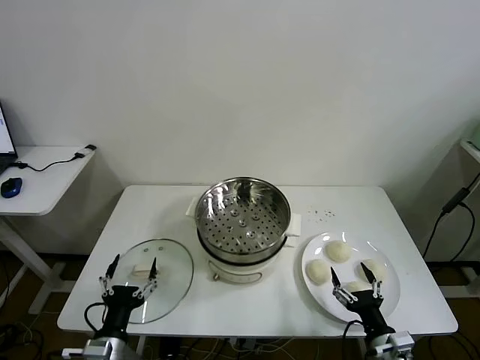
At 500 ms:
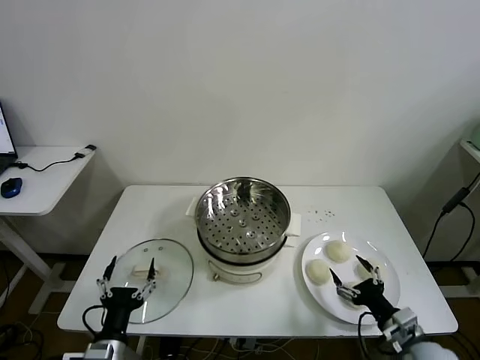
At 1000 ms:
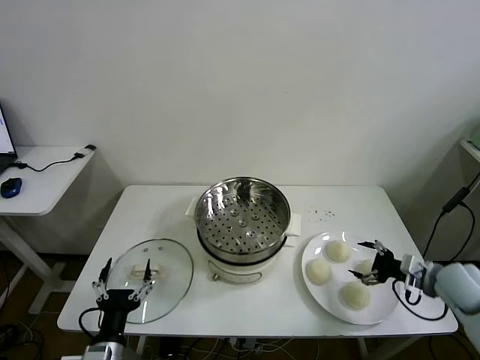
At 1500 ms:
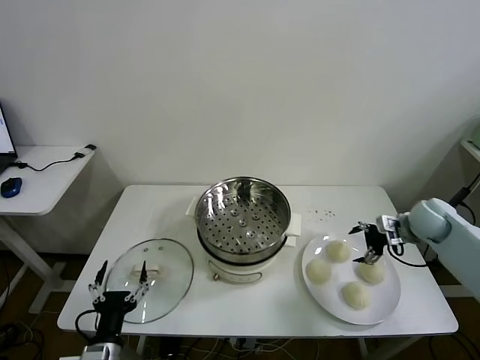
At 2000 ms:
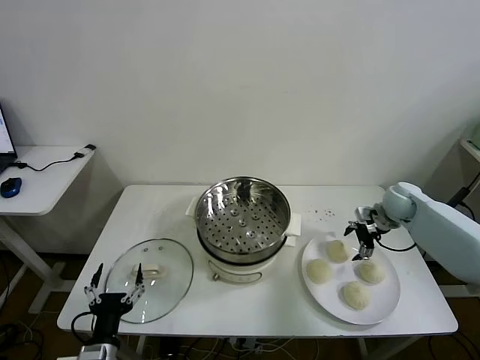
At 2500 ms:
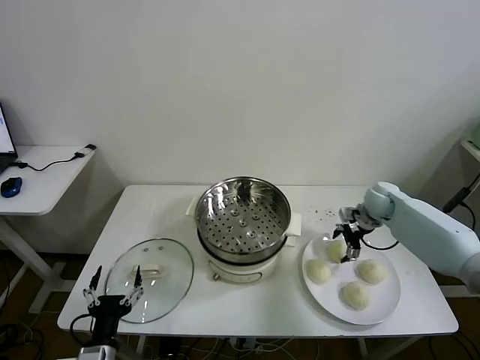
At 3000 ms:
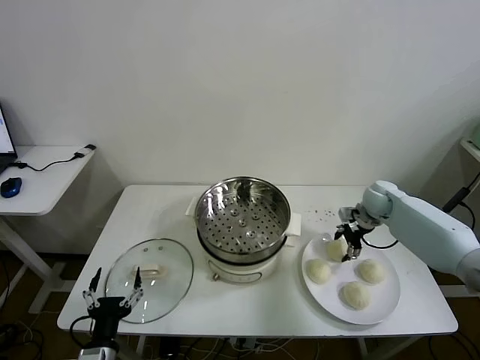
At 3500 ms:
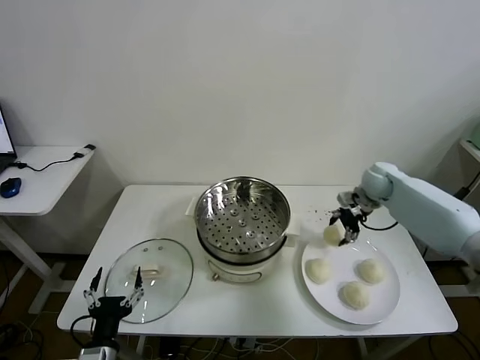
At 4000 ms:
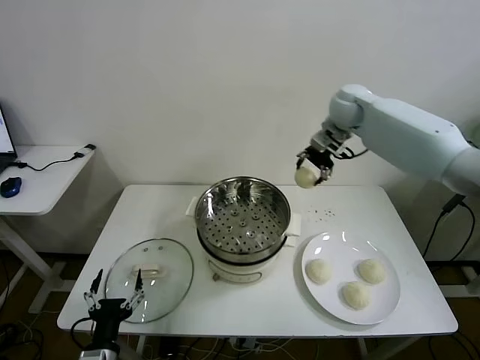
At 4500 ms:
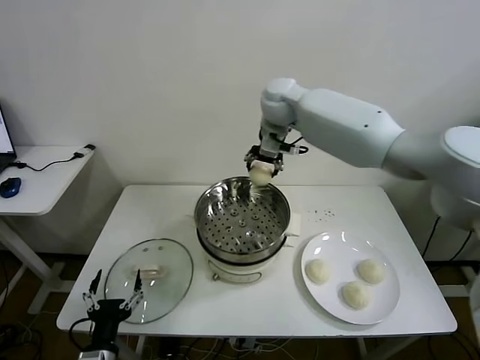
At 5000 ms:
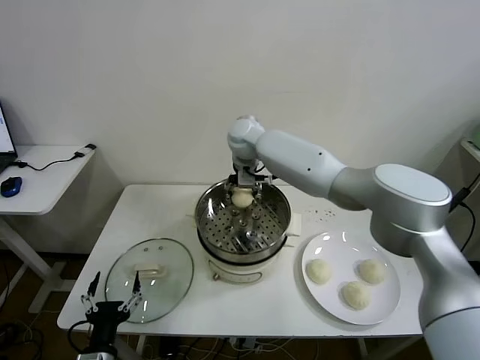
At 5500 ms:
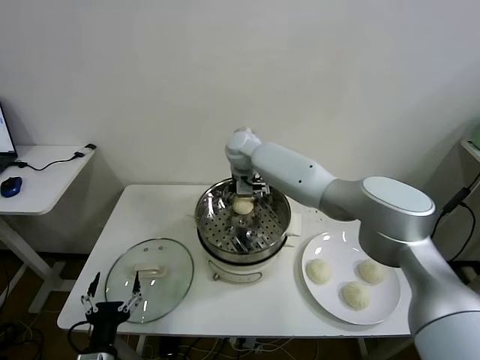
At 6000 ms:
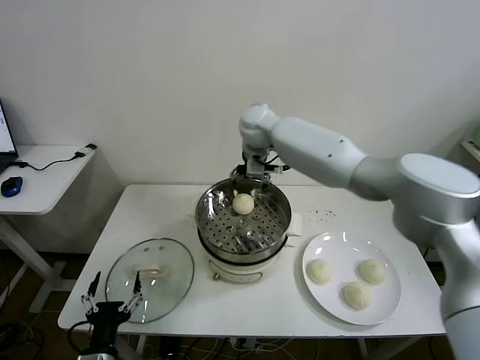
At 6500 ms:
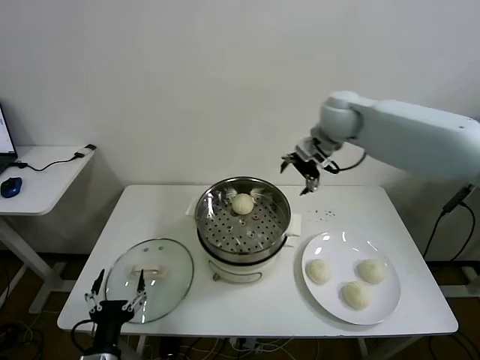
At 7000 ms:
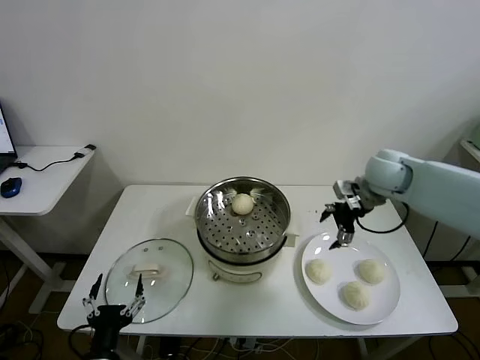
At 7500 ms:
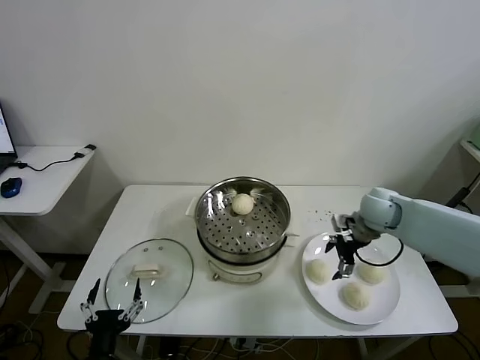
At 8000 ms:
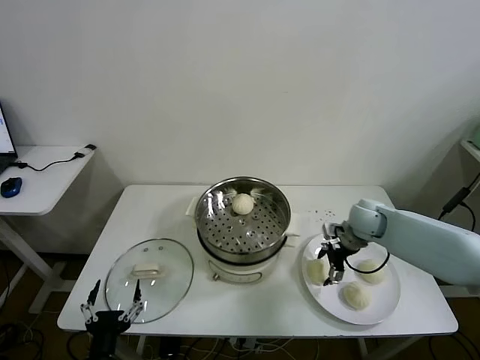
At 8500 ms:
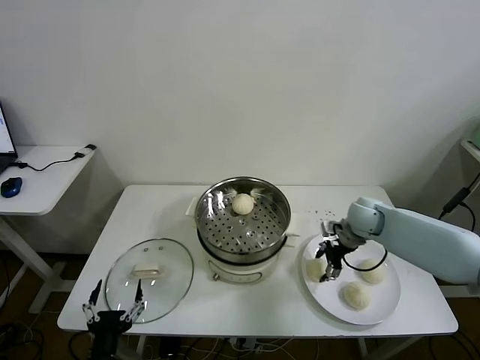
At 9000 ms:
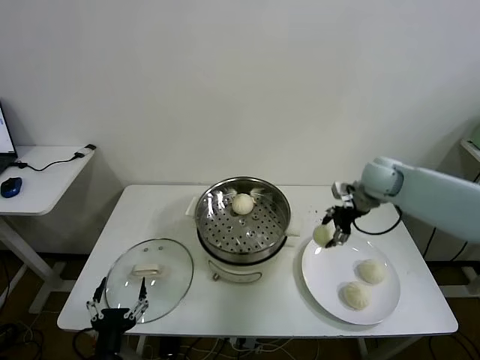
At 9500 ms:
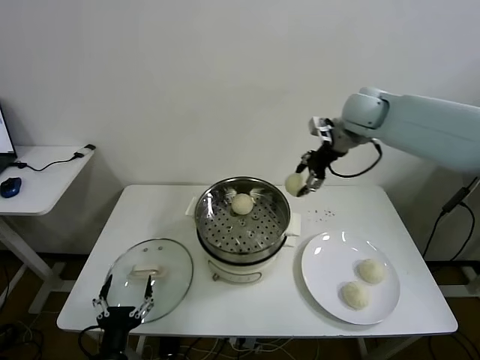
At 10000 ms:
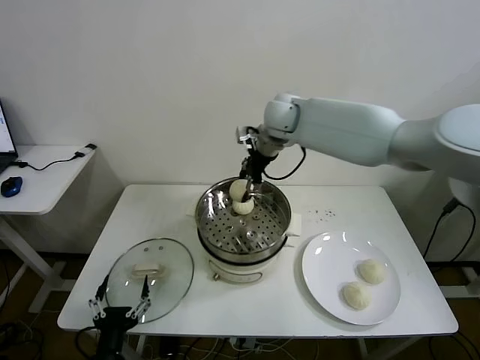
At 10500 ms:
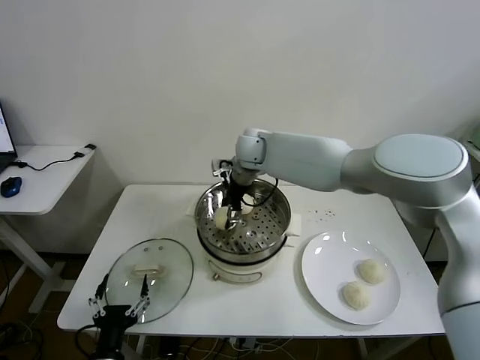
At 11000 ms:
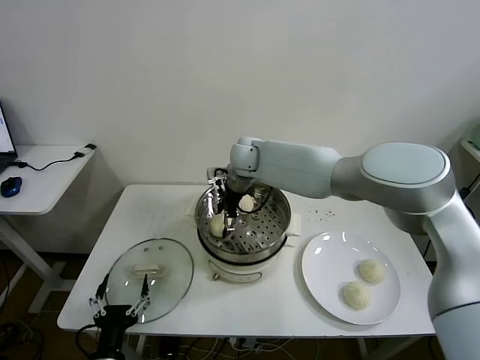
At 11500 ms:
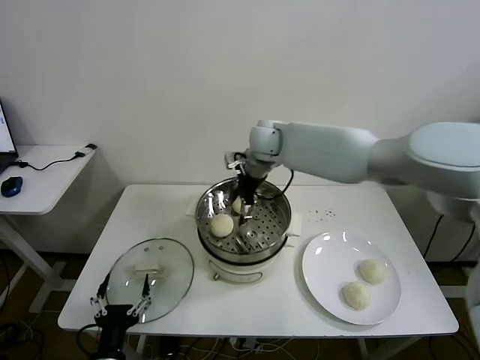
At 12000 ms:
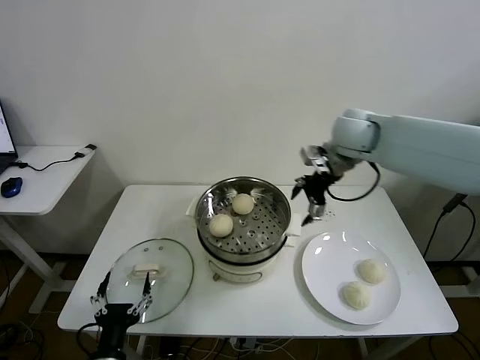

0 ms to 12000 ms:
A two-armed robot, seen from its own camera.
Task of the whole recording: take steamed baozi put them in steamer then cover it.
Step, 0 ms to 3000 ms: Grasp the baozi in the plate with right gripper.
Step, 3500 ms to 5500 ms: Place the baozi on the steamer with right gripper.
Step, 6000 ms to 8500 ms: Grasp the baozi in the plate with right gripper.
Step, 9000 ms to 11000 ms: Place the baozi on the steamer with right gripper.
2000 ms to 4000 ms: The right gripper heads upward and to the left, covering some 30 cm, and closes up.
4000 ms to 6000 ms: The right gripper travels to the left by some 15 cm, and opens up.
6000 ms to 8000 ms: The right gripper shifts some 35 cm to the right, downward and backward.
8000 ms to 10000 ms: The right gripper goes about 35 cm to the left, upward and forward, and closes.
10000 ms to 12000 ms: The right gripper moves to the right and backward, roughly 20 cm, and opens its fingers.

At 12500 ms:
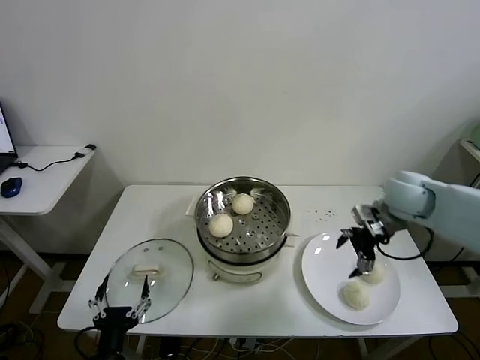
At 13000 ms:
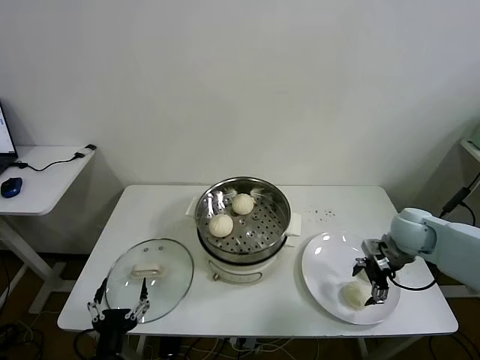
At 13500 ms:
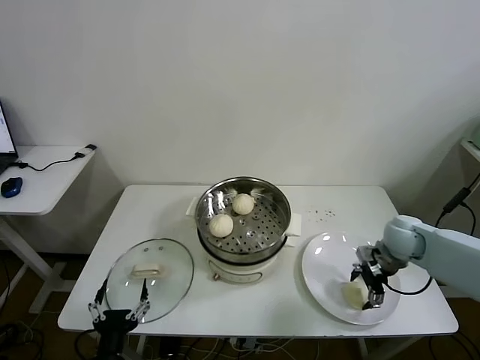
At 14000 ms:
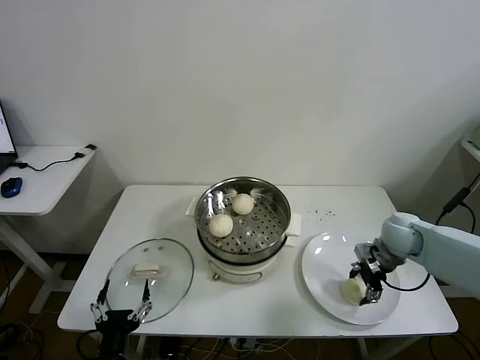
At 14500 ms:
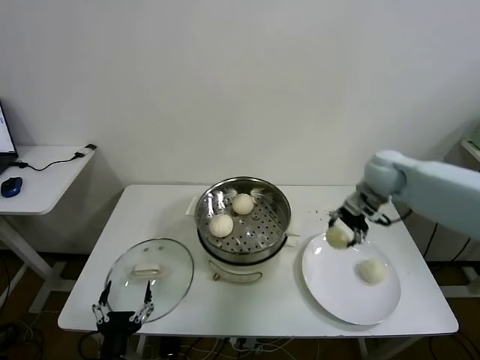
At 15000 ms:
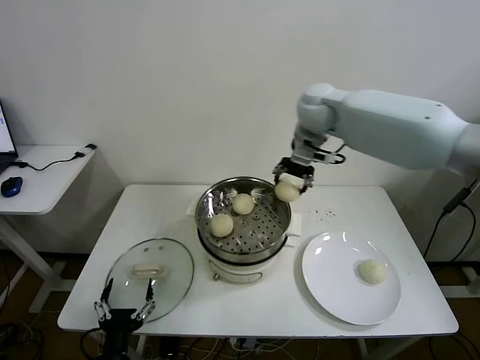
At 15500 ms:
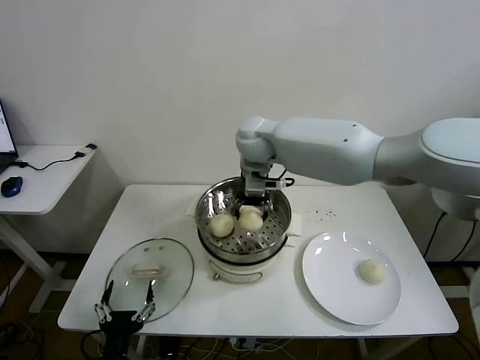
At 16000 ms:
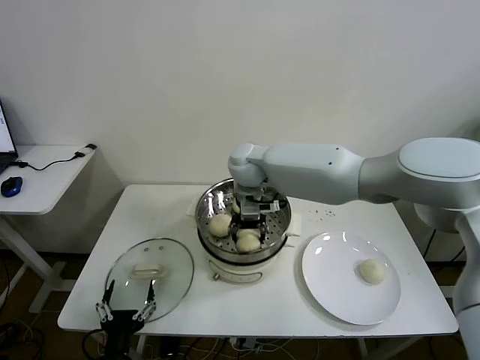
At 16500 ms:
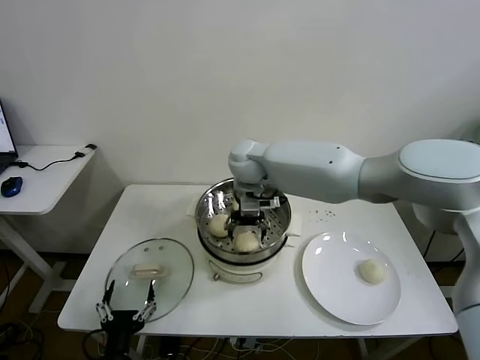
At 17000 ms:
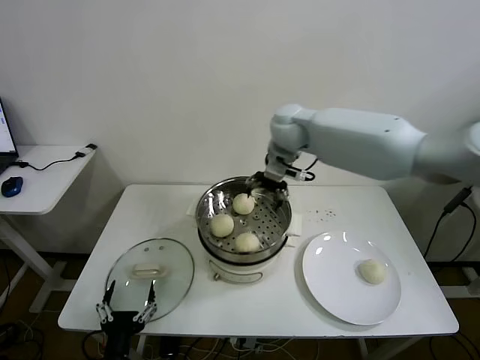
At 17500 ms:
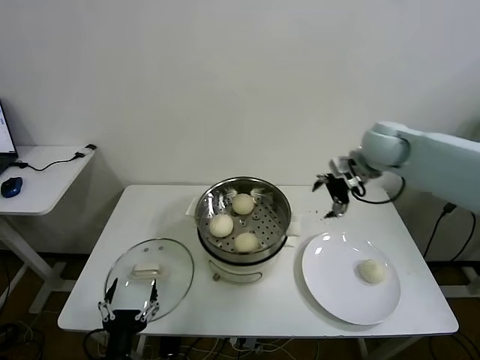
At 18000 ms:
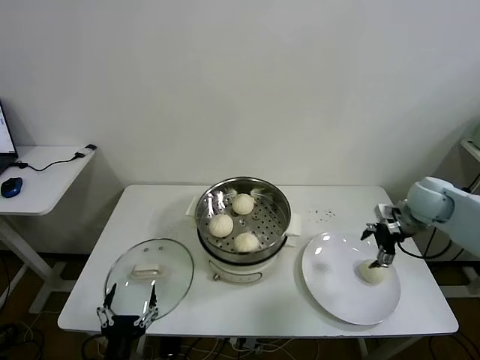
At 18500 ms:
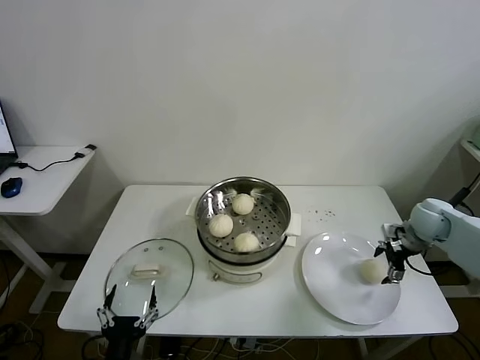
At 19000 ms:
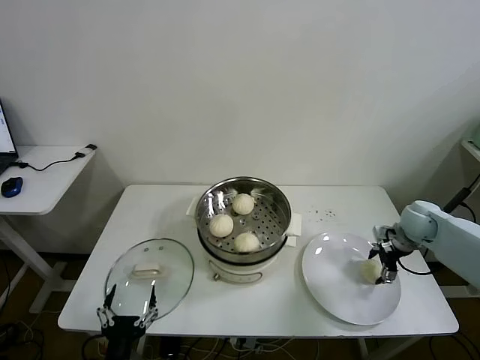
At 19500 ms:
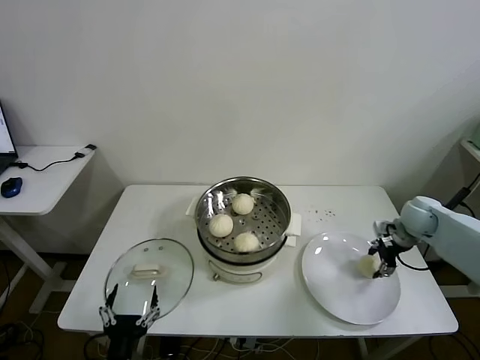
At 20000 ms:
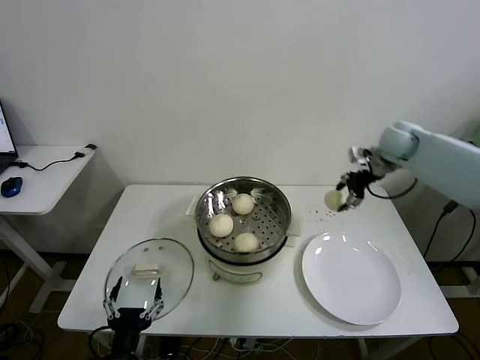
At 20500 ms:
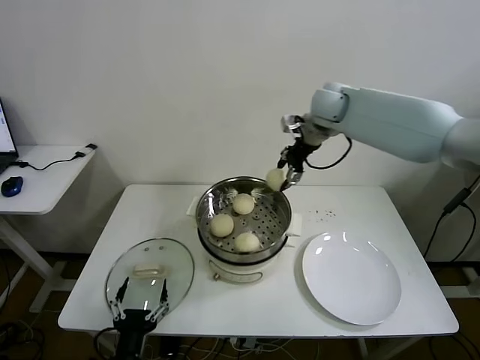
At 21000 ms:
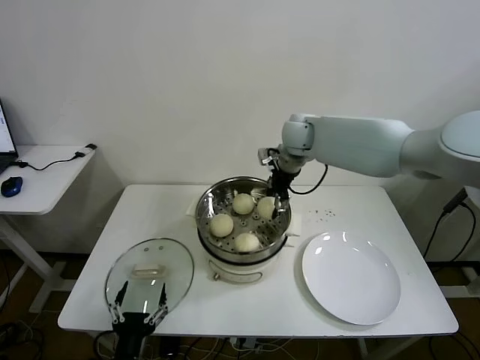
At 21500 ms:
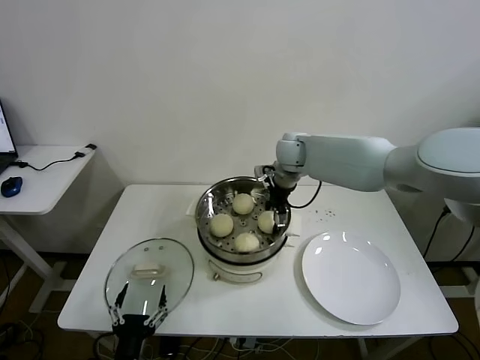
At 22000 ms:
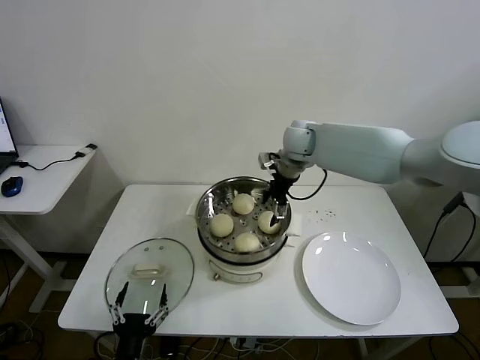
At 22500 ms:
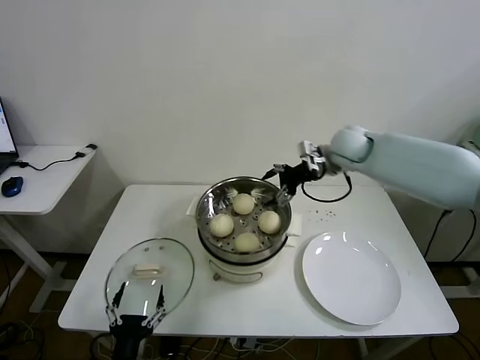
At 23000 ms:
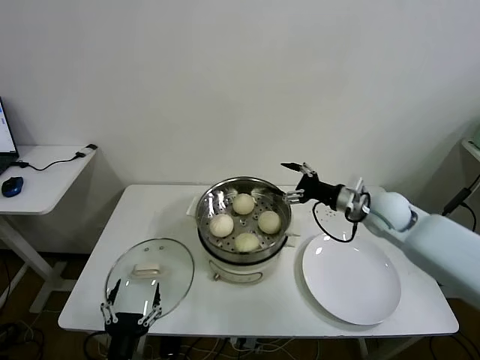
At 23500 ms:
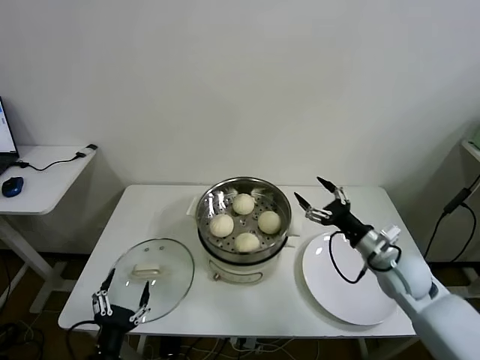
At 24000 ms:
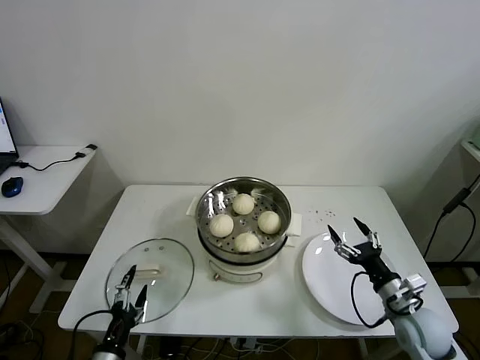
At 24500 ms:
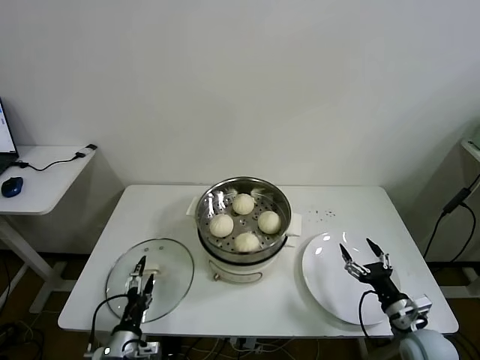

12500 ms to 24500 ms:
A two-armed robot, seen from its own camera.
Task of the whole recording: take steamed baozi put them in steamer then cover it.
Step, 12500 ms to 14000 ms: Grasp the baozi in the plate with right gripper.
Step, 14500 ms to 16500 ms: Place the baozi on the steamer with right gripper.
Step, 17000 ms to 19000 ms: Grasp the baozi in the plate with right gripper.
Step, 19500 ms to 22000 ms: Place the baozi on the steamer with right gripper.
12500 ms to 14500 ms: The right gripper shifts some 10 cm forward and upward, and closes its fingers.
14500 ms to 16500 ms: The right gripper travels to the left by some 30 cm, and opens its fingers.
16500 ms to 18500 ms: The right gripper is displaced to the right by roughly 40 cm.
18500 ms to 20500 ms: The right gripper heads to the left, upward and forward, covering about 40 cm, and closes its fingers.
20500 ms to 22500 ms: The right gripper moves downward, to the right and backward, some 10 cm, and opens its fingers.
22500 ms to 24500 ms: The left gripper goes roughly 10 cm forward and downward; the right gripper heads backward and downward, covering roughly 40 cm.

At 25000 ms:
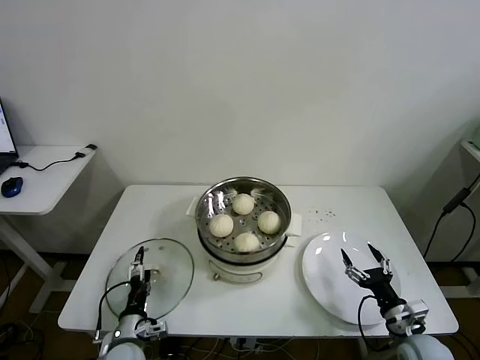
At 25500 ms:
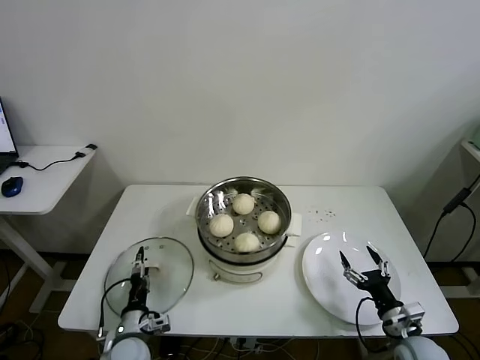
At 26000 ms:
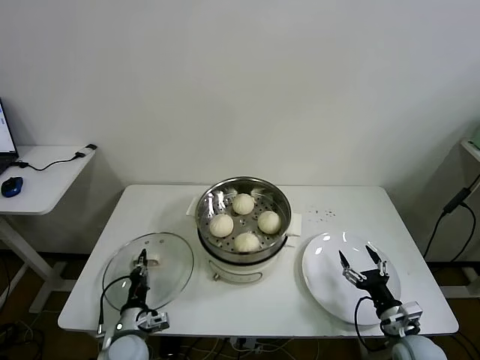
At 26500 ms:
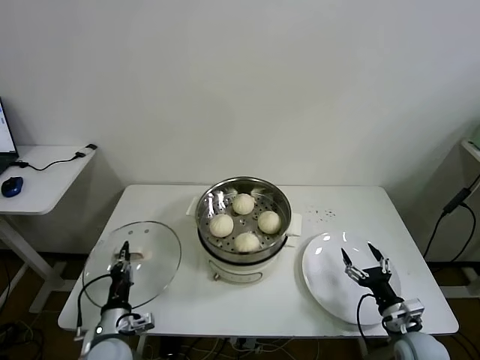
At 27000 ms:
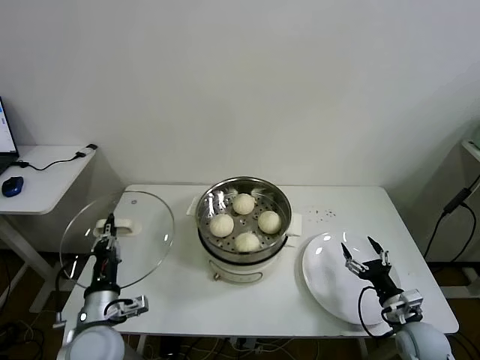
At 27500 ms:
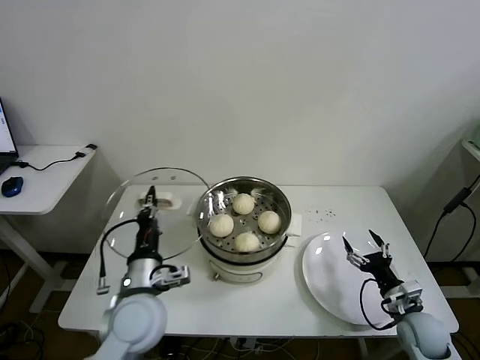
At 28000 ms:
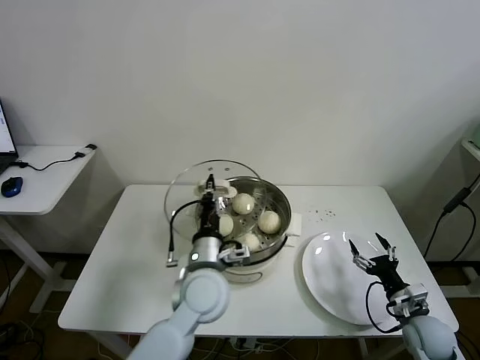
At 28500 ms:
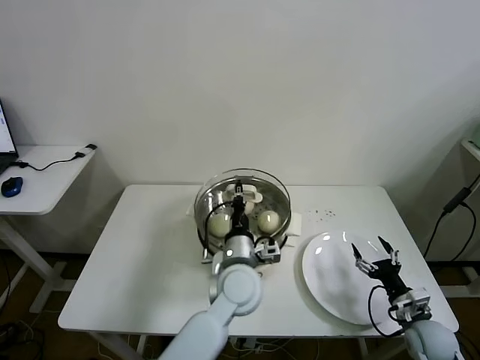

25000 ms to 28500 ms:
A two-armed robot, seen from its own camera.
Task of the whole recording: take steamed baozi put them in steamer then cover it.
25000 ms to 27000 ms: The left gripper travels upward by about 15 cm, and closes its fingers.
27000 ms to 28500 ms: The left gripper shifts some 30 cm to the right and forward.
